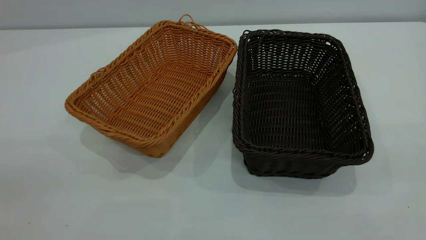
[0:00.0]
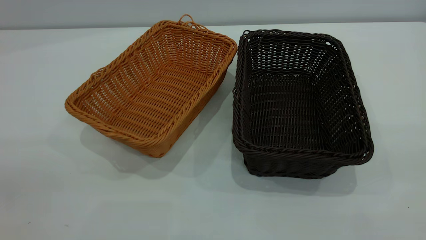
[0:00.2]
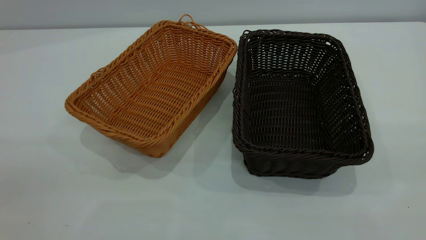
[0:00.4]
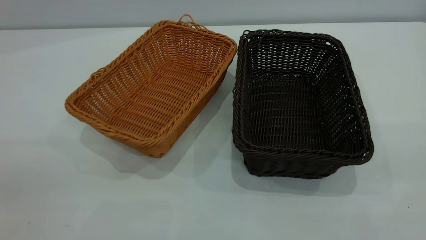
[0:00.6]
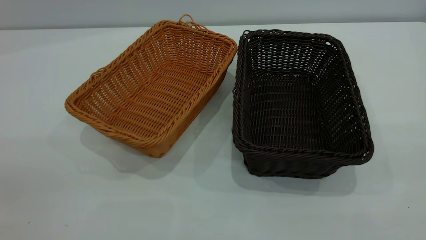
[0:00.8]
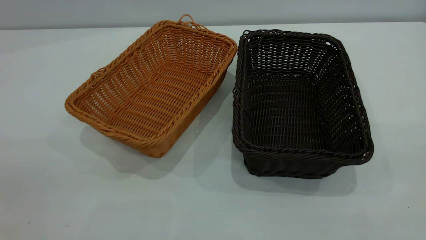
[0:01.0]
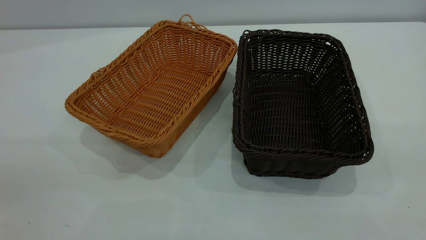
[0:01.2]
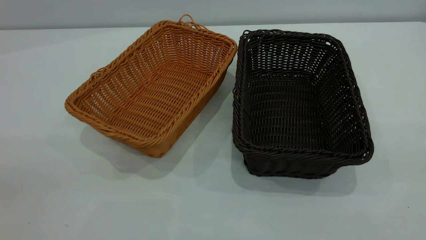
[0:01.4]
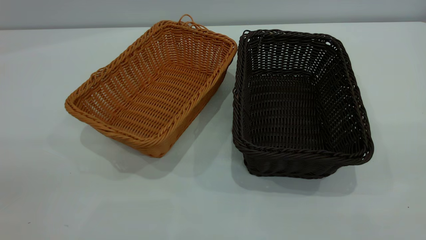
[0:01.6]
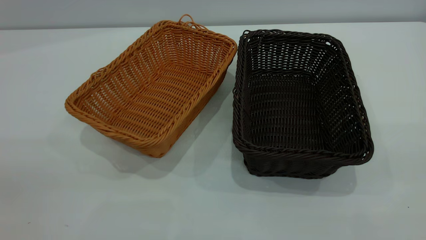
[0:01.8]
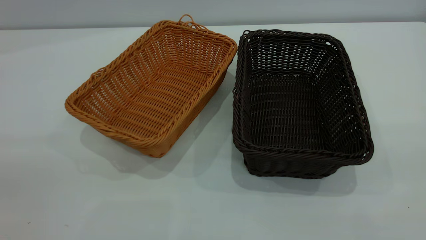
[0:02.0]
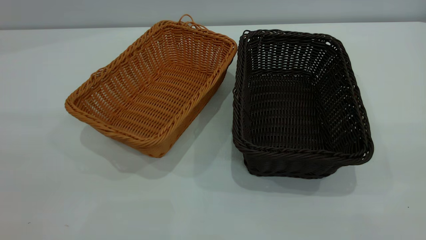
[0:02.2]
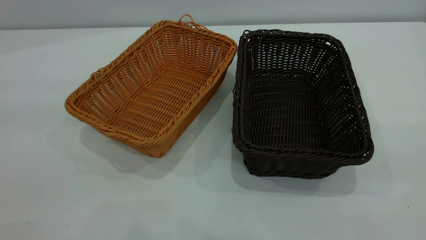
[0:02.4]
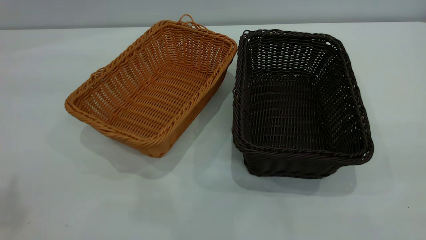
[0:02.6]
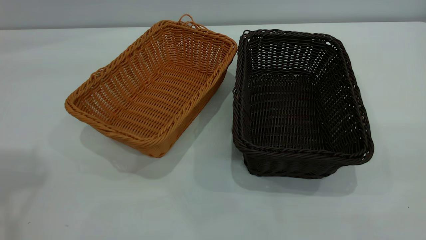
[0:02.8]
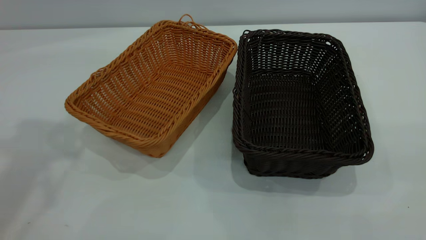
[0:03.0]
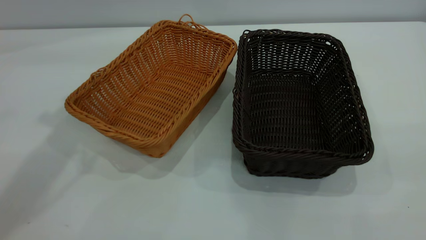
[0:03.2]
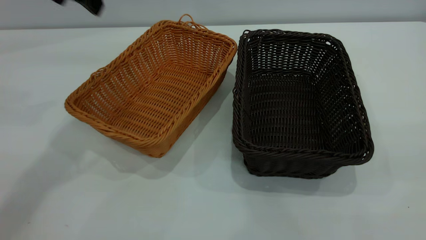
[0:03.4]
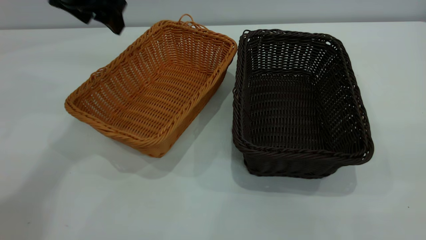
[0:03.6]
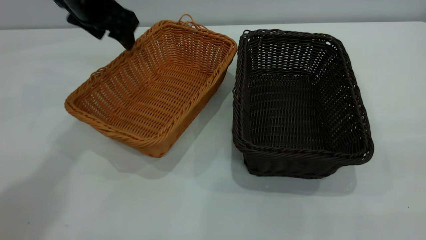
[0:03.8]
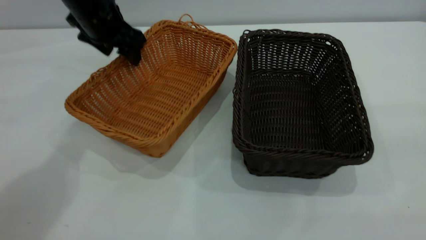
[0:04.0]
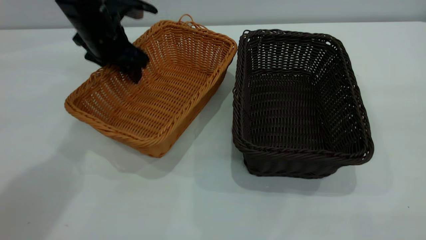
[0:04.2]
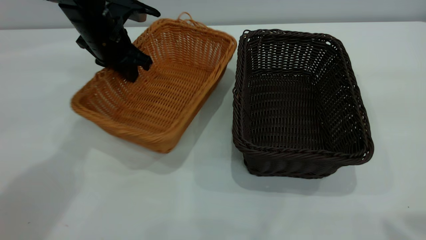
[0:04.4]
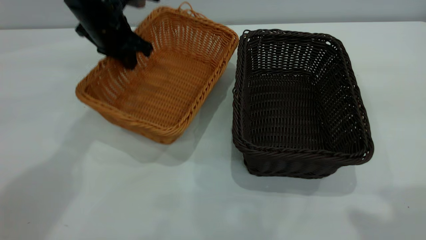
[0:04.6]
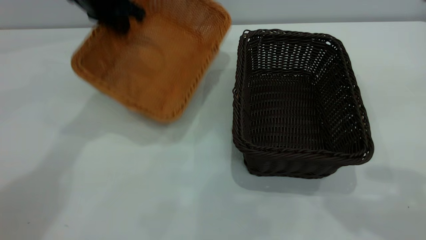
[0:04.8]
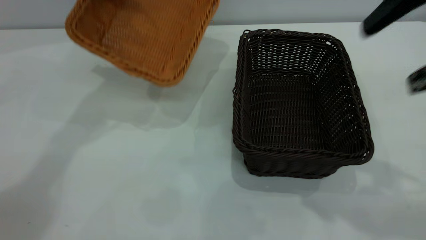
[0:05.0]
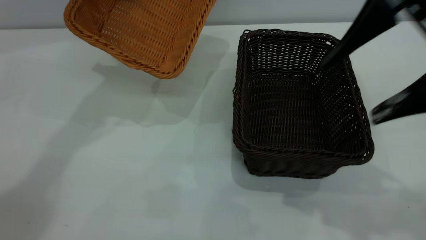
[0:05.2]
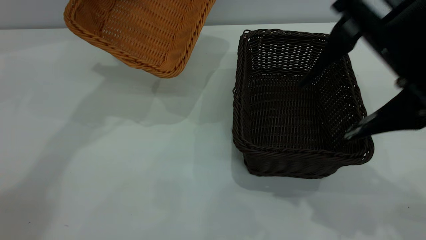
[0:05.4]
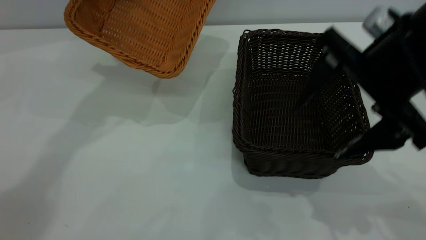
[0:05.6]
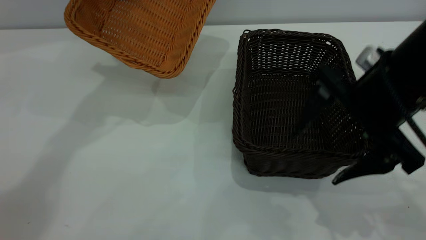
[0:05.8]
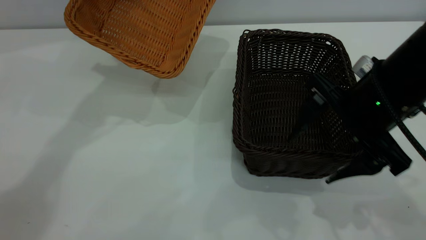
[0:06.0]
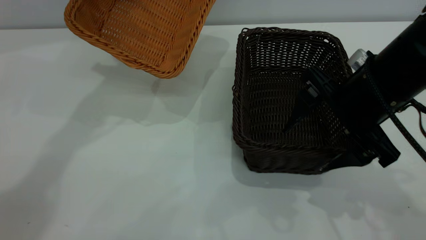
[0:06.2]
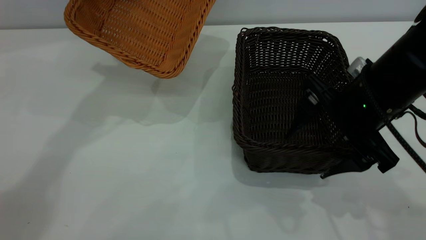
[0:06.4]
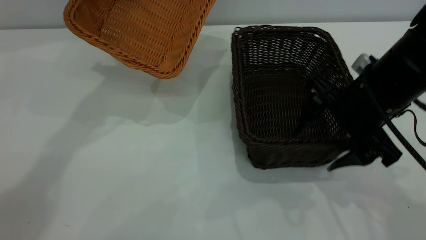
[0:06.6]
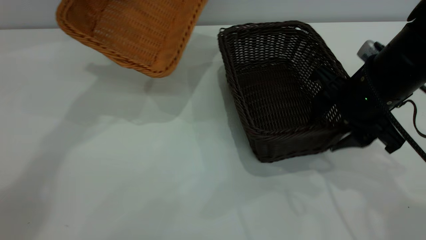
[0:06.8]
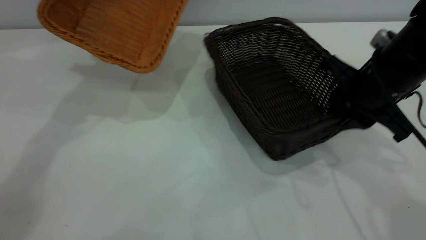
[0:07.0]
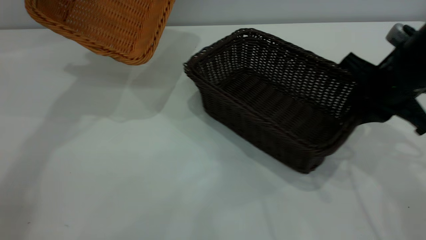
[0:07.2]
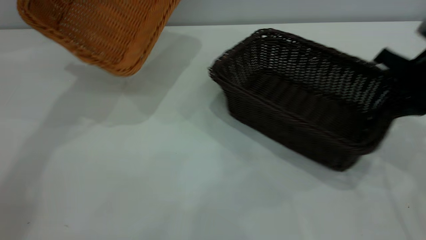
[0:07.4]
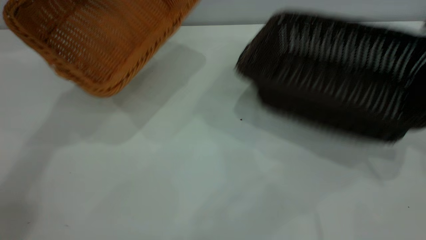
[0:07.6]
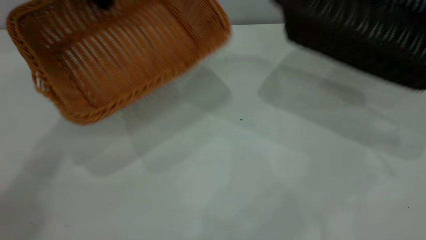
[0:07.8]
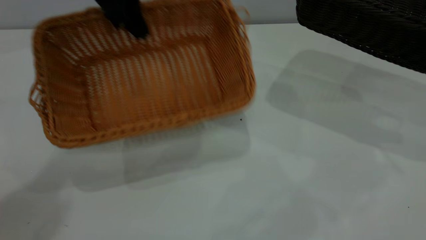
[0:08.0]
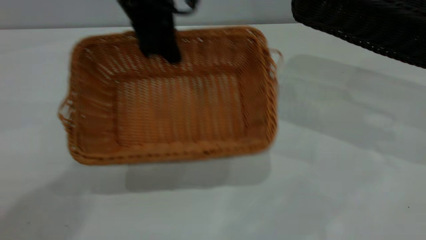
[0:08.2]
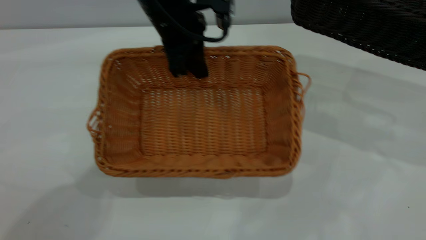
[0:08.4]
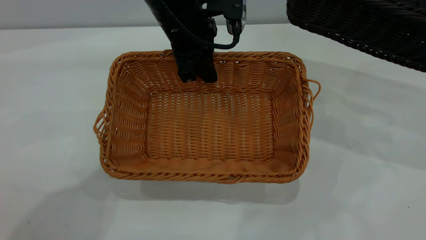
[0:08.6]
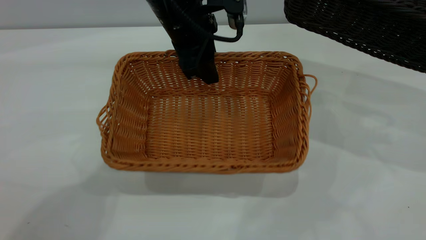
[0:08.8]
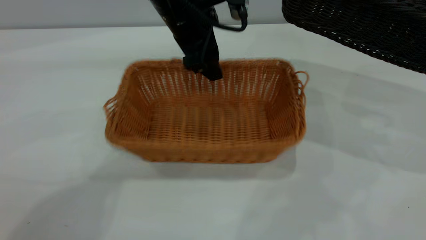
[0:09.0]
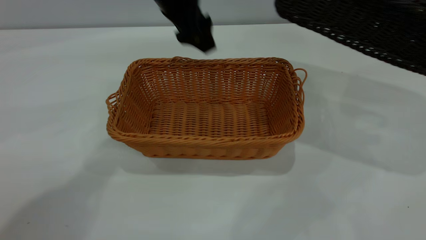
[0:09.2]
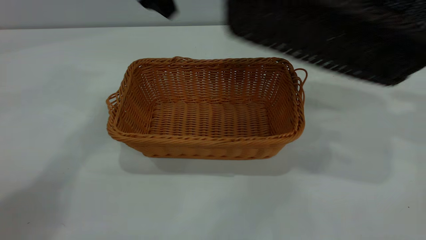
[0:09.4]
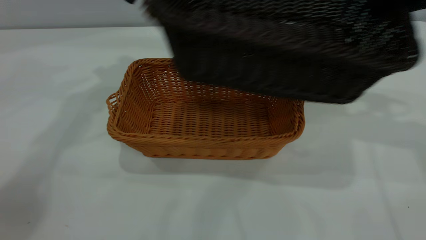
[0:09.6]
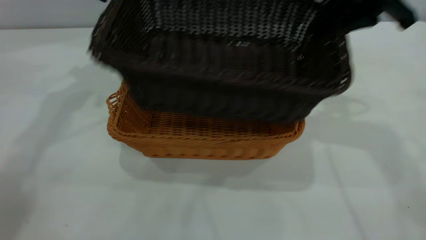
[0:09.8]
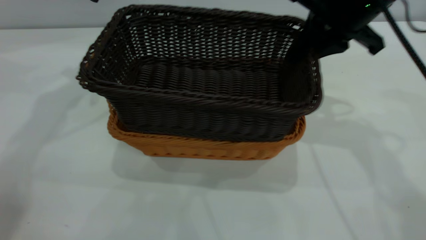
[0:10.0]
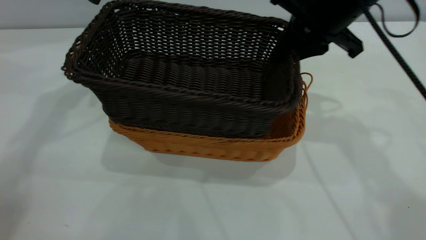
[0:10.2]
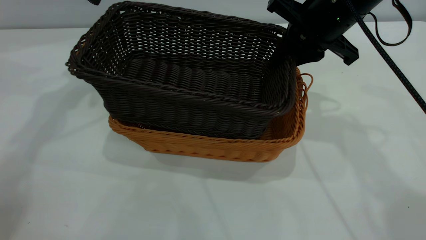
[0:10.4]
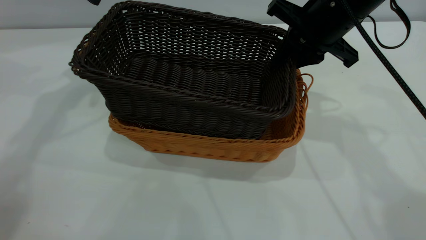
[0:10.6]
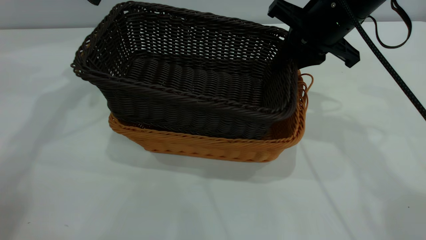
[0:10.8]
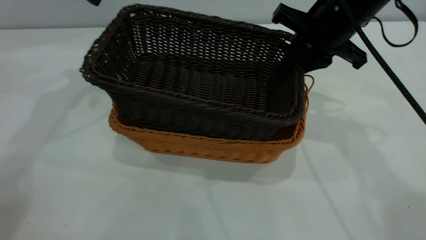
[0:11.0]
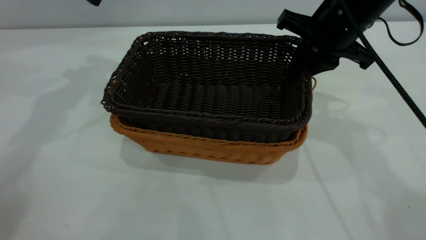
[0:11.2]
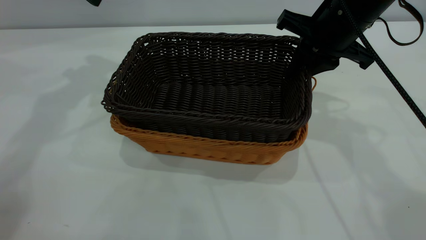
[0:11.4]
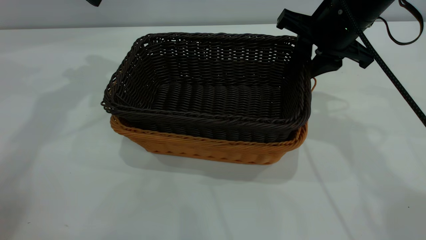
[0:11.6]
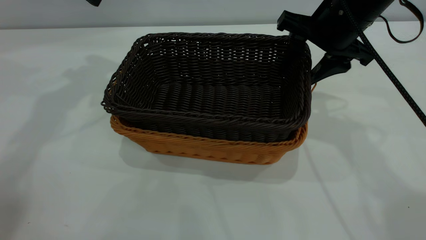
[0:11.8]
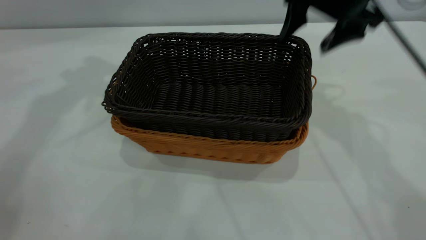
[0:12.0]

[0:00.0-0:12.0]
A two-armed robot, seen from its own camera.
Task of the whole recording: the left gripper grasp the brown basket and place it in the center of the table, the right gripper grasp the black basket and place it inside the brown one.
Step, 0:00.0 to 0:07.4: Pick up the light basket with the right gripper.
Step, 0:07.6 to 0:09.0: Place the light-colored basket in the center.
Step, 0:09.2 to 0:11.8: Place the dark basket on top of the light basket.
0:00.0 to 0:01.6: Both grippers stay about where they are.
0:03.0 to 0:04.4: The left gripper moves downward and forward, some 30 cm, and closes up; the right gripper is displaced forward by some 15 cm.
0:04.4 to 0:06.0: The right gripper travels downward, forward and to the left by roughly 30 cm; the left gripper shifts roughly 15 cm upward.
0:06.0 to 0:07.6: The right gripper travels to the right by roughly 20 cm, and closes up.
0:07.6 to 0:09.0: The left gripper travels to the right and downward by some 20 cm, and opens up. Meanwhile the right gripper is displaced upward by some 10 cm.
0:09.0 to 0:10.4: The two grippers go roughly 25 cm to the left.
0:10.4 to 0:12.0: The right gripper ends up approximately 5 cm from where it was, and opens up; the left gripper is displaced upward by some 5 cm.
